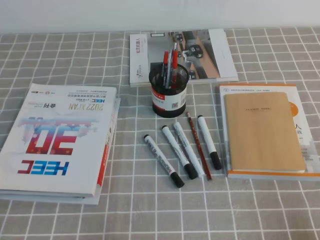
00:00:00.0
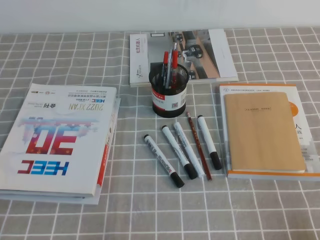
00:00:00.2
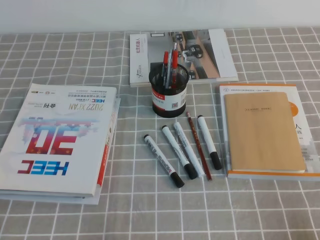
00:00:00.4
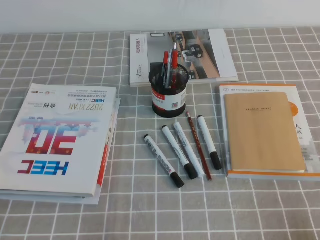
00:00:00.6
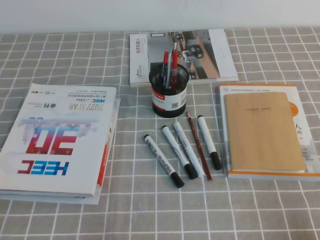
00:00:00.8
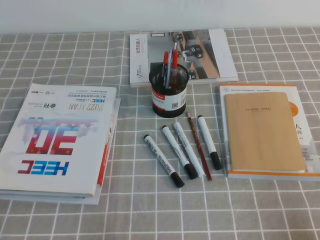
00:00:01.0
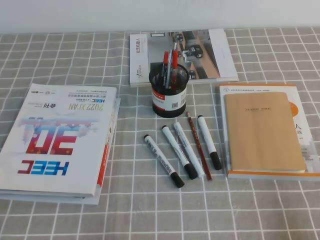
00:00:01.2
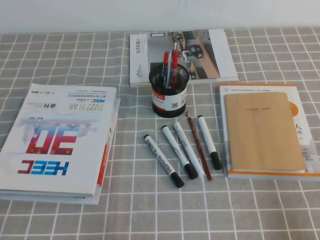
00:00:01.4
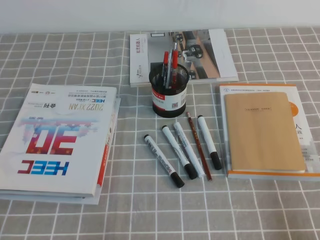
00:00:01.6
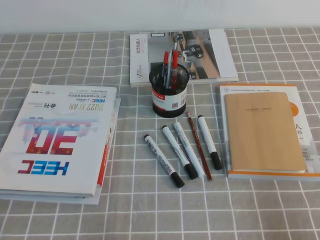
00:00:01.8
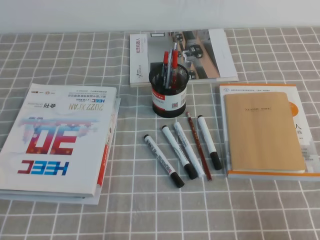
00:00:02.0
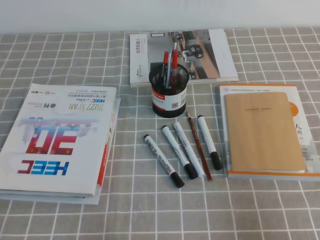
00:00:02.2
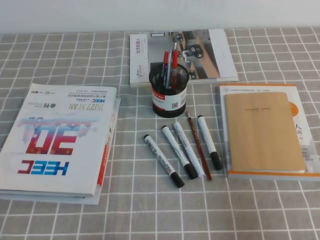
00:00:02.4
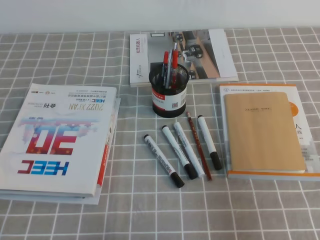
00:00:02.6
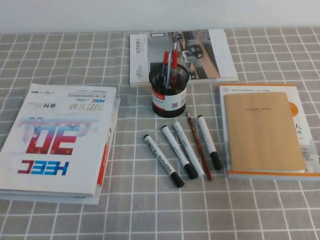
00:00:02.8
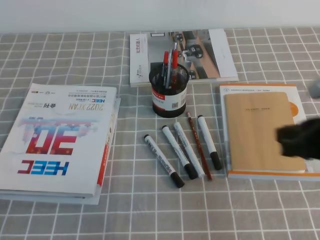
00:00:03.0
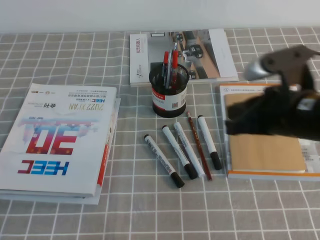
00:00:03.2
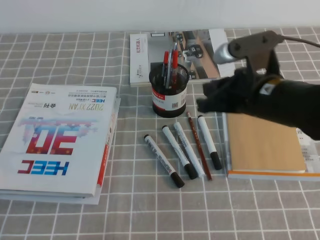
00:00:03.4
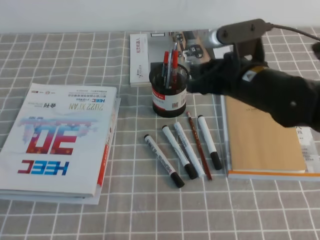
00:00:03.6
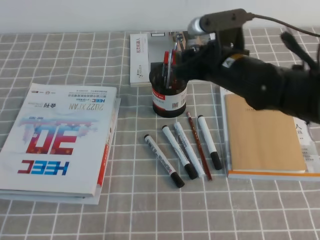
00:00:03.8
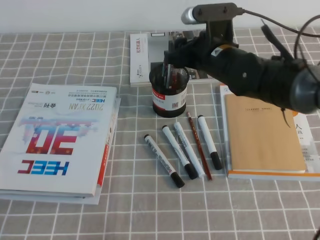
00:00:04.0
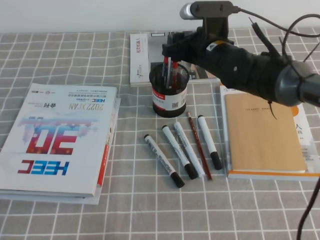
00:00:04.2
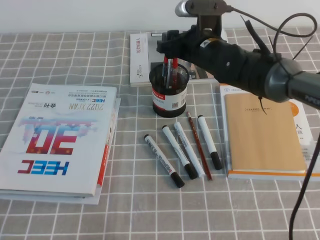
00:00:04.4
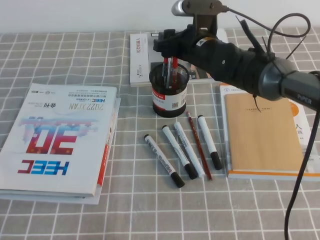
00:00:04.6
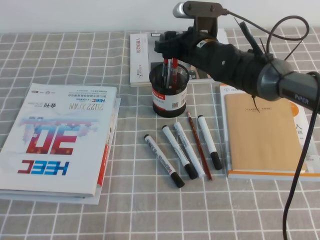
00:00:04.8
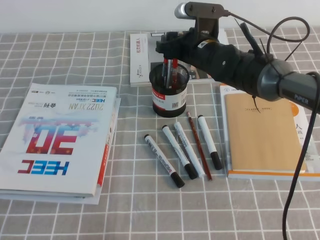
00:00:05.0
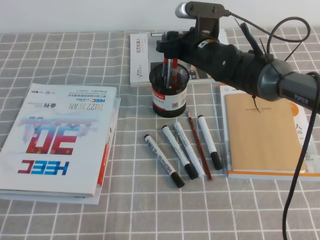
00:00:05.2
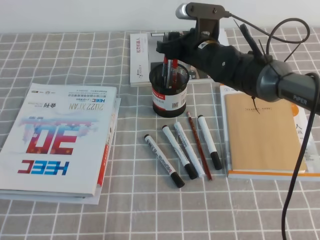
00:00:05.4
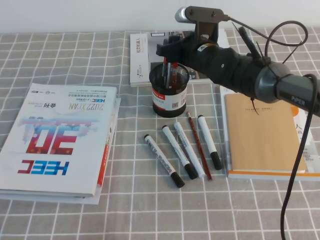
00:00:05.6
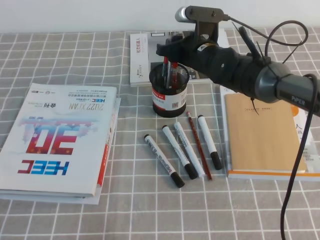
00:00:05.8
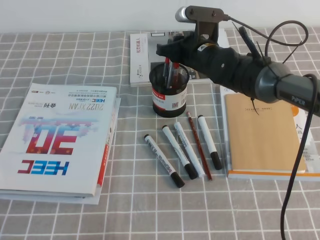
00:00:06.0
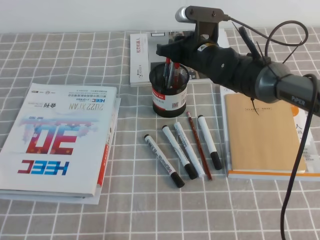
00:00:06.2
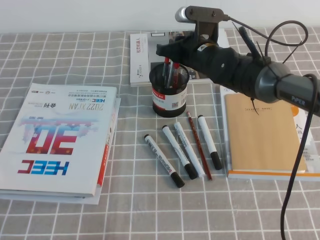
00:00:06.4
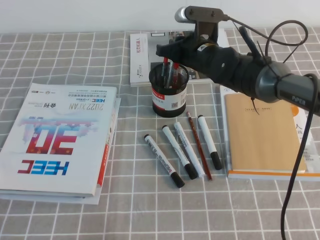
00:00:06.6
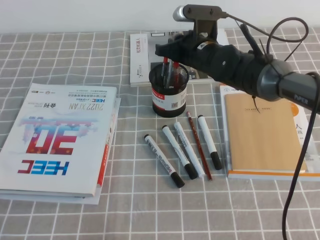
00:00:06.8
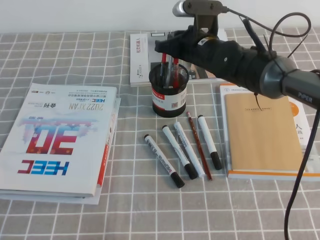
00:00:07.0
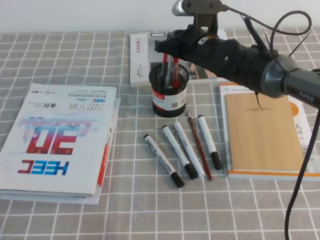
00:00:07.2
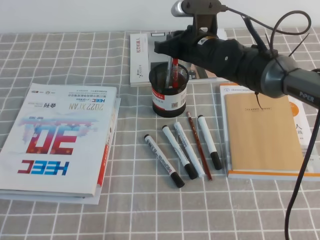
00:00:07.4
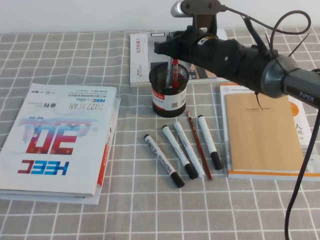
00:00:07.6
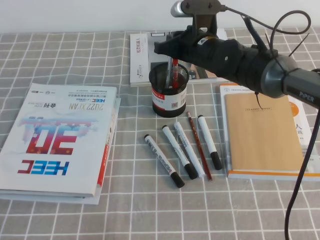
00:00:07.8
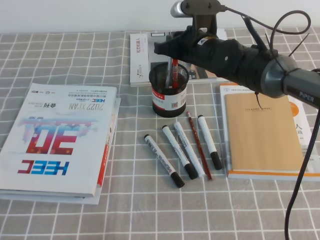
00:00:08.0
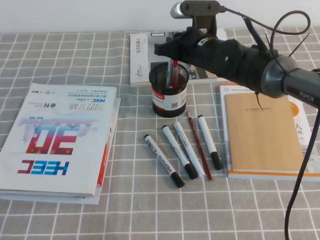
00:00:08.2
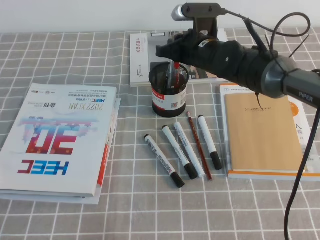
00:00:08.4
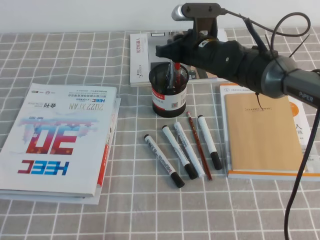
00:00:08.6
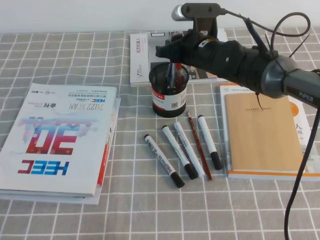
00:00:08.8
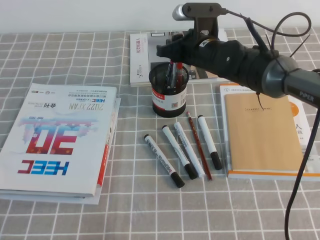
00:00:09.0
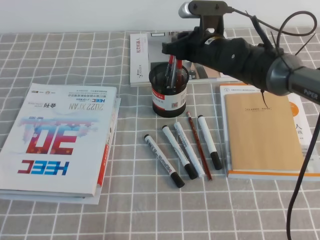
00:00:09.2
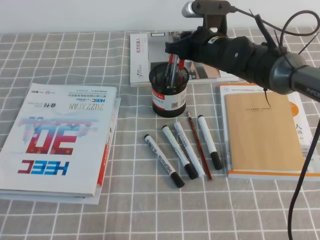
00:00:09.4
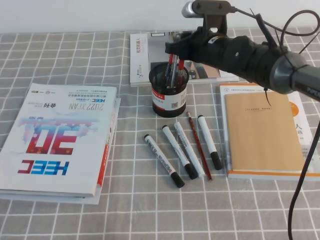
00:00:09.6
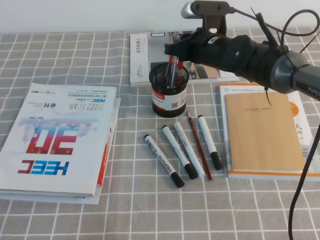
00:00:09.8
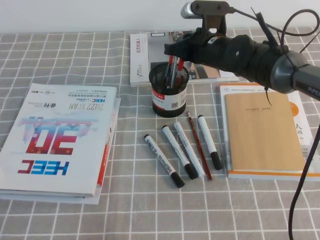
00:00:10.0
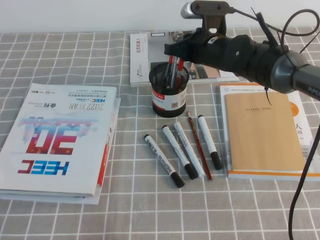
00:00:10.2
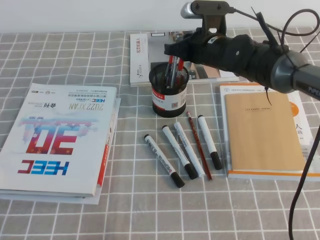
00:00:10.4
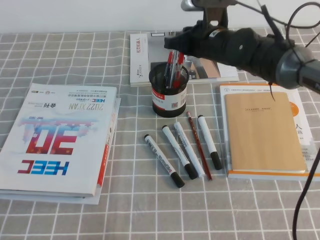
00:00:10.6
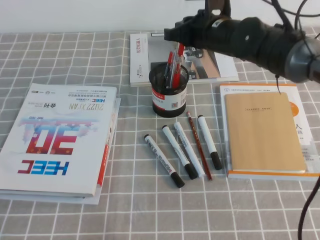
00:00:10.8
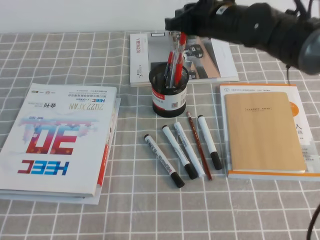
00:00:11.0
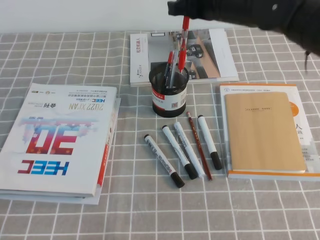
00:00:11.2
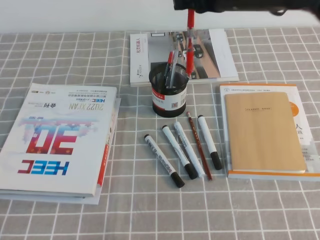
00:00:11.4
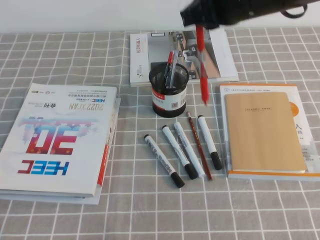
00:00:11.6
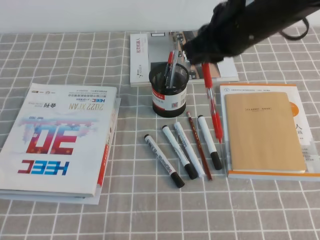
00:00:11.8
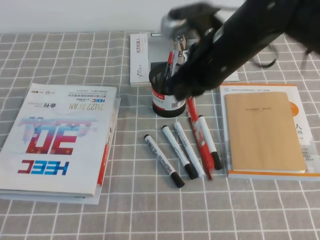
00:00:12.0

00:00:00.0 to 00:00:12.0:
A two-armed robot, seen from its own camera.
00:00:01.6 to 00:00:03.0: The right gripper goes about 20 cm forward, upward and to the left.
00:00:03.0 to 00:00:04.4: The right gripper heads forward and to the left, covering roughly 30 cm, and opens up.
00:00:04.4 to 00:00:06.0: The right gripper closes its fingers.
00:00:06.0 to 00:00:07.6: The right gripper closes its fingers.
00:00:07.6 to 00:00:09.0: The right gripper opens up.
00:00:09.0 to 00:00:10.4: The right gripper closes.
00:00:10.4 to 00:00:12.0: The right gripper is displaced backward and upward by some 15 cm.

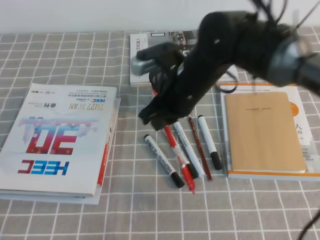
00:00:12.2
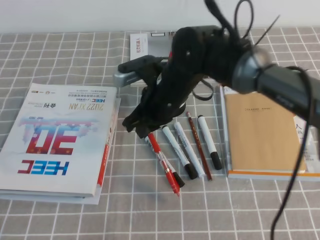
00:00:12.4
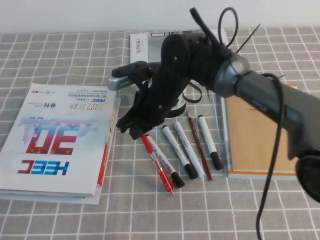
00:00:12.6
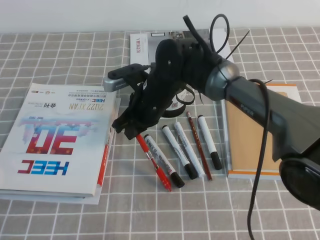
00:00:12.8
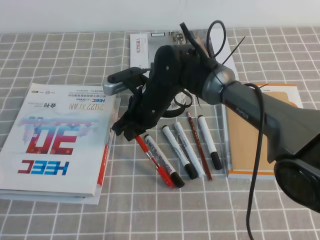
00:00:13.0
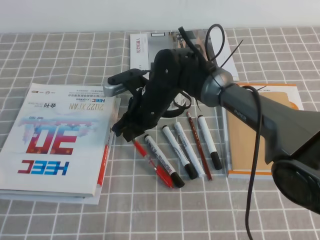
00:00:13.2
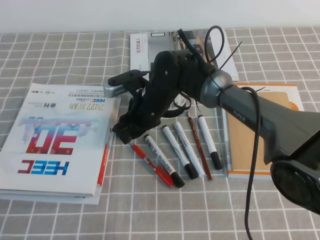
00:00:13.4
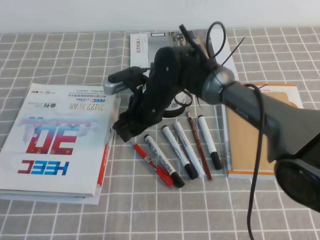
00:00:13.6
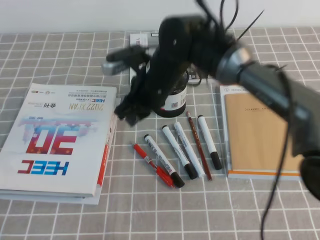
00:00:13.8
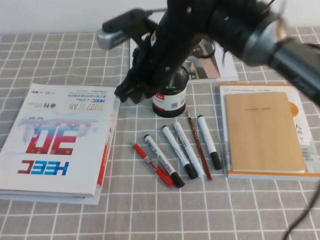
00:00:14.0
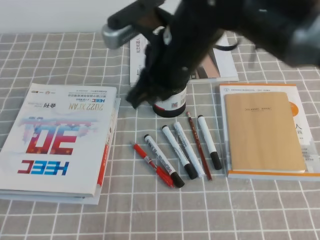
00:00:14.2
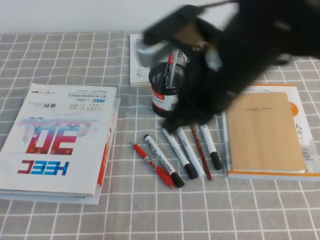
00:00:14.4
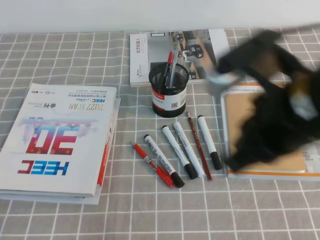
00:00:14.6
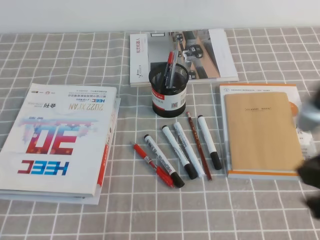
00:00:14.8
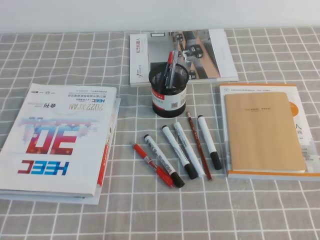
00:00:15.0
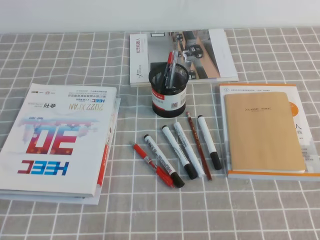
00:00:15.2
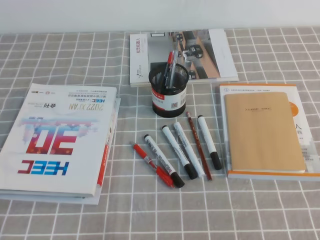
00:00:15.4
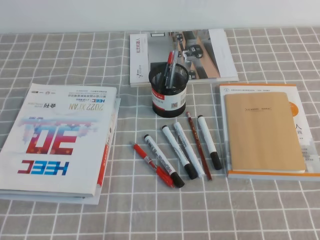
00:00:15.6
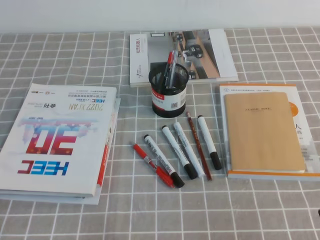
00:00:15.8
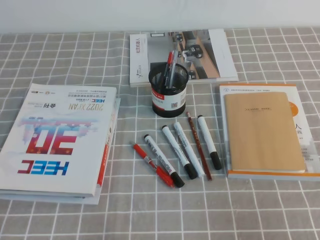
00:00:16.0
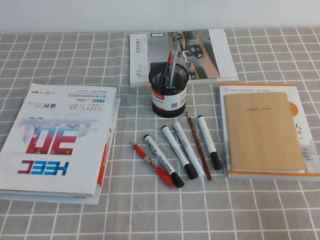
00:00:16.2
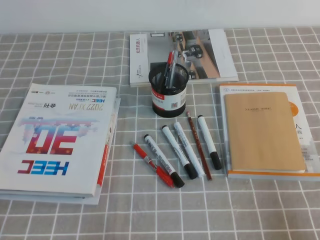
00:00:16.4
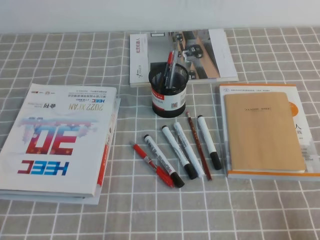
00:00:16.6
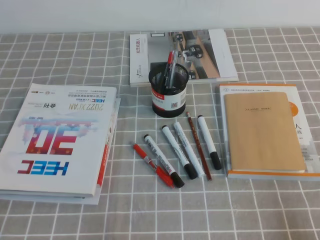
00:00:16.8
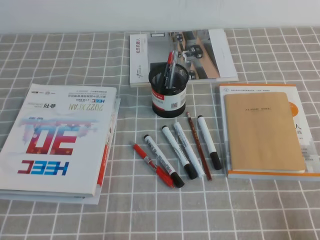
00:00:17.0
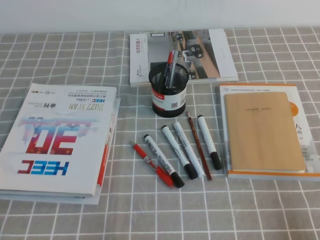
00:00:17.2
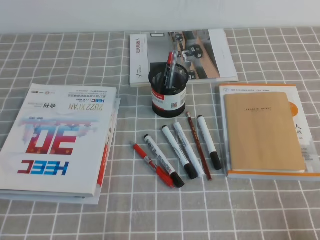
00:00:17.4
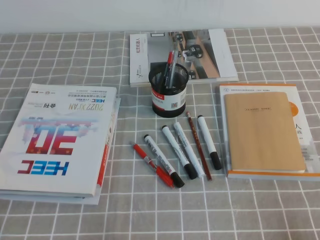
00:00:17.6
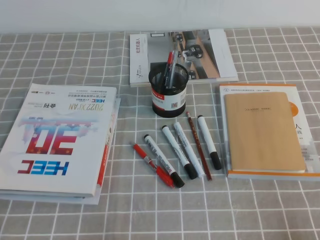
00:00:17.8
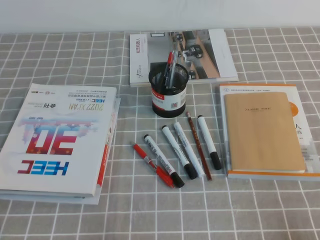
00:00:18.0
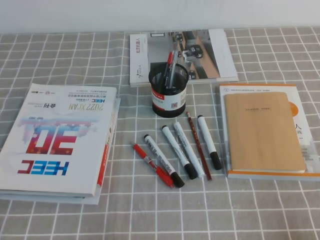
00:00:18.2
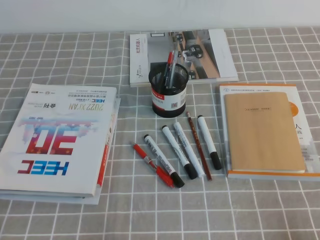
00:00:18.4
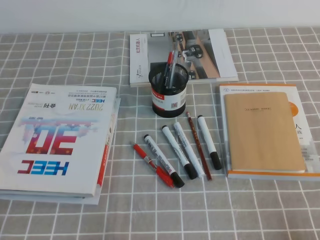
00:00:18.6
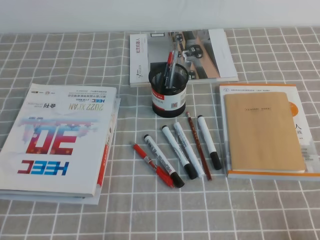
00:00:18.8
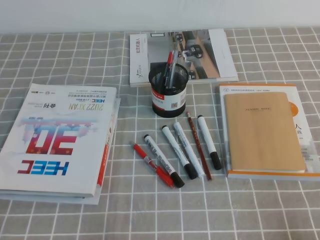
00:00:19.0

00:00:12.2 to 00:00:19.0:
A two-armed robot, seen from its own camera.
Step, 00:00:12.2 to 00:00:19.0: Pick up the pen from the pen holder.
00:00:12.2 to 00:00:13.6: The right gripper moves downward and to the left, roughly 10 cm, and opens up.
00:00:13.6 to 00:00:15.0: The right gripper heads backward, to the right and upward, covering some 40 cm, and closes its fingers.
00:00:15.0 to 00:00:16.2: The right gripper is displaced downward by roughly 15 cm.
00:00:17.6 to 00:00:19.0: The two grippers keep their place.
